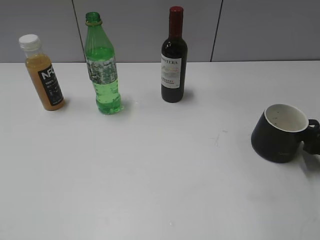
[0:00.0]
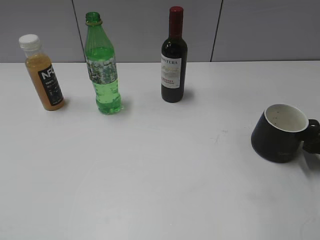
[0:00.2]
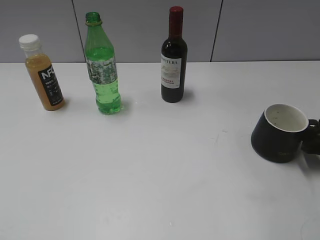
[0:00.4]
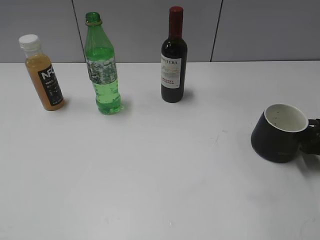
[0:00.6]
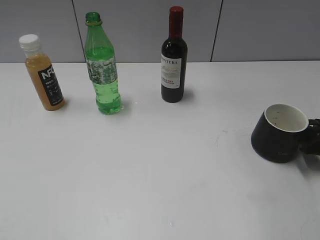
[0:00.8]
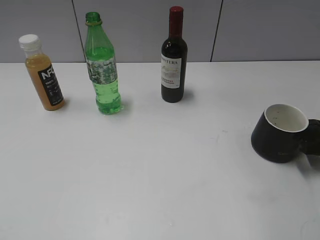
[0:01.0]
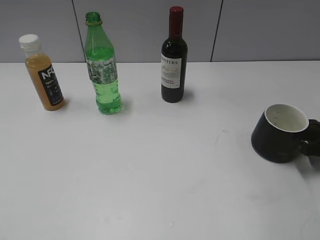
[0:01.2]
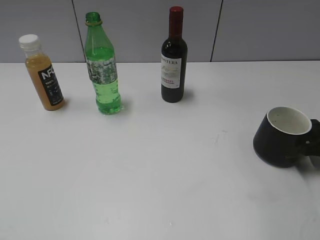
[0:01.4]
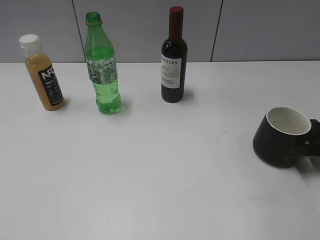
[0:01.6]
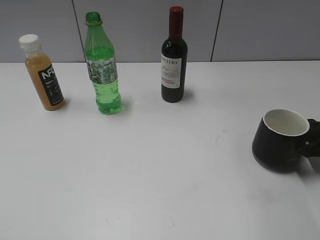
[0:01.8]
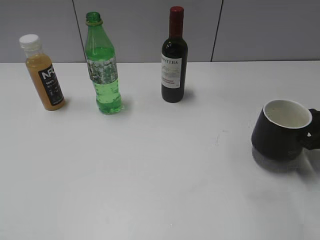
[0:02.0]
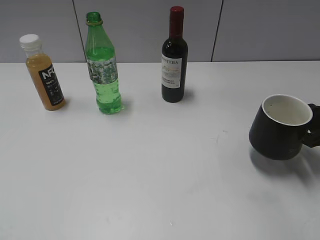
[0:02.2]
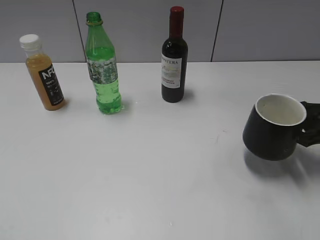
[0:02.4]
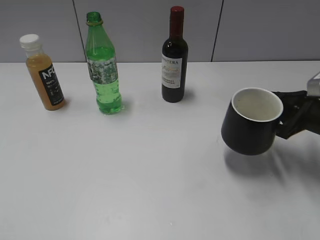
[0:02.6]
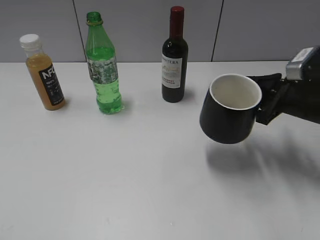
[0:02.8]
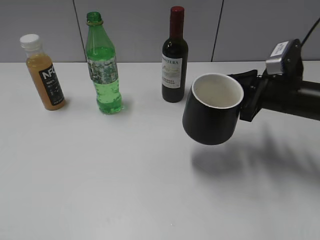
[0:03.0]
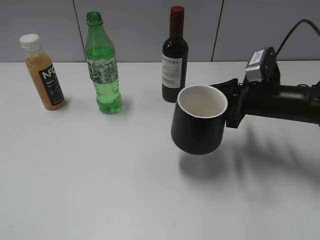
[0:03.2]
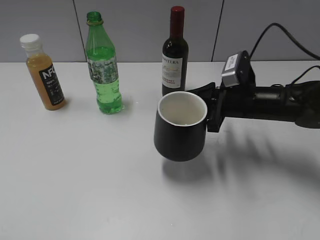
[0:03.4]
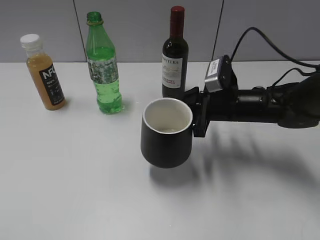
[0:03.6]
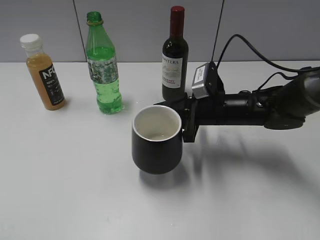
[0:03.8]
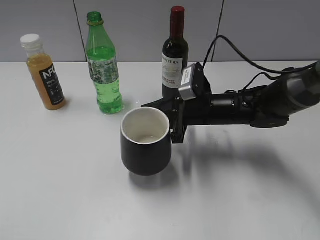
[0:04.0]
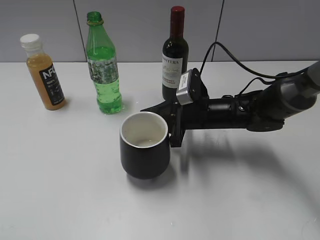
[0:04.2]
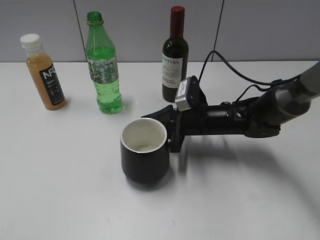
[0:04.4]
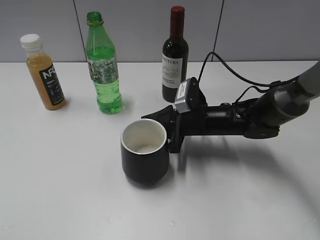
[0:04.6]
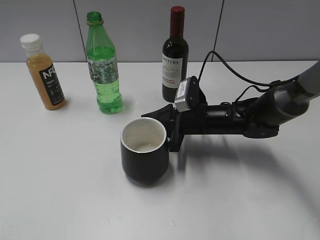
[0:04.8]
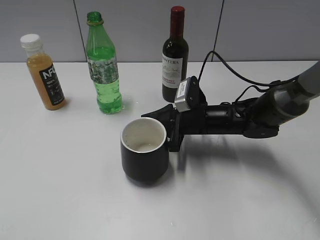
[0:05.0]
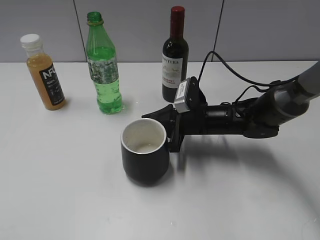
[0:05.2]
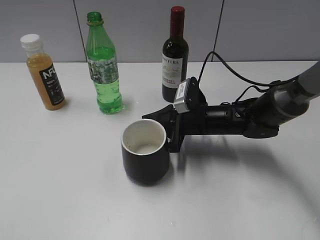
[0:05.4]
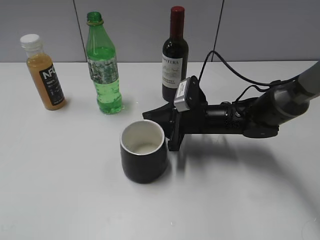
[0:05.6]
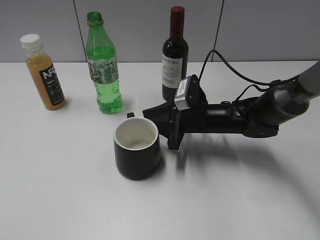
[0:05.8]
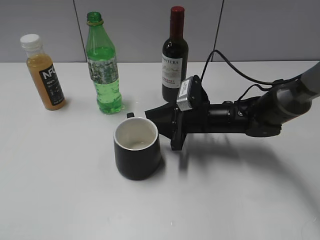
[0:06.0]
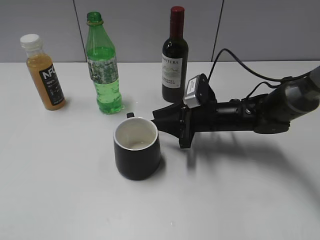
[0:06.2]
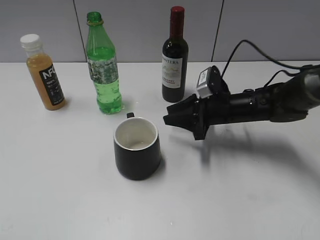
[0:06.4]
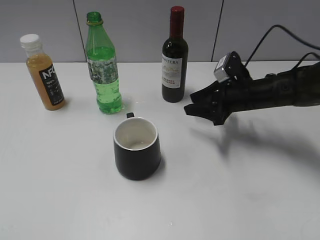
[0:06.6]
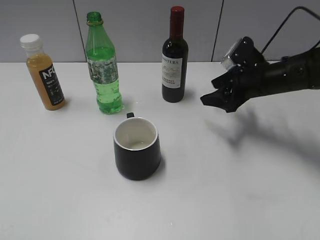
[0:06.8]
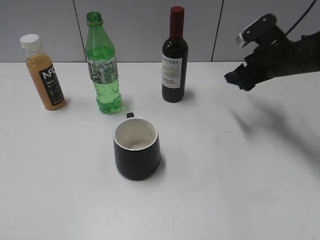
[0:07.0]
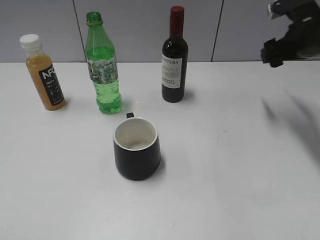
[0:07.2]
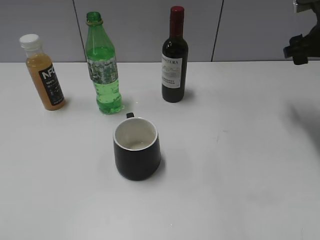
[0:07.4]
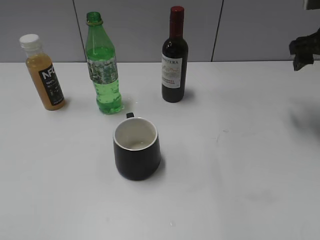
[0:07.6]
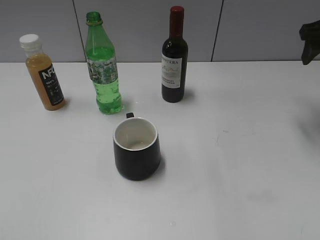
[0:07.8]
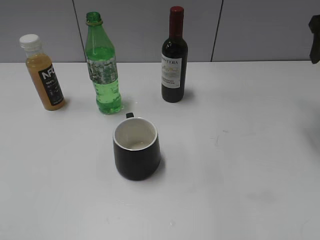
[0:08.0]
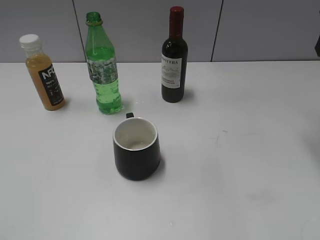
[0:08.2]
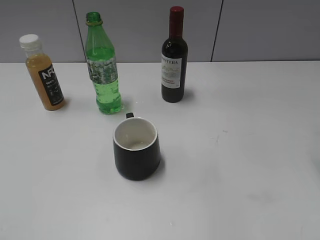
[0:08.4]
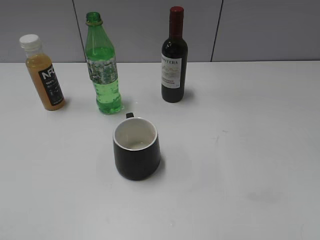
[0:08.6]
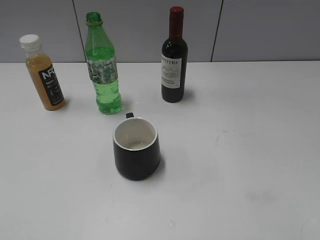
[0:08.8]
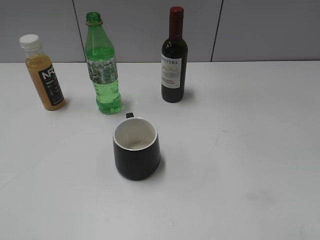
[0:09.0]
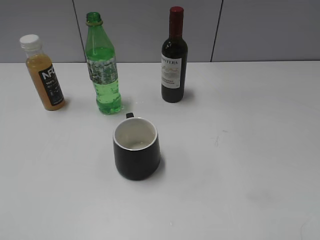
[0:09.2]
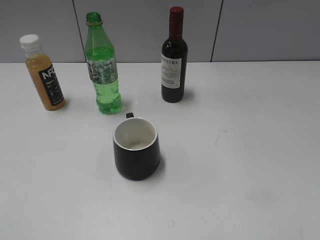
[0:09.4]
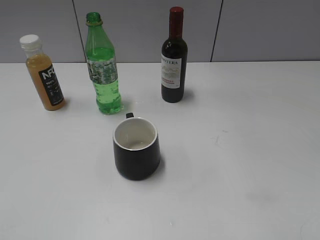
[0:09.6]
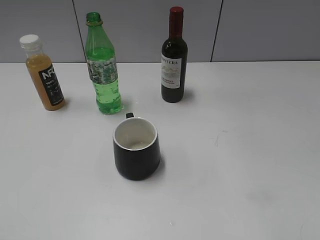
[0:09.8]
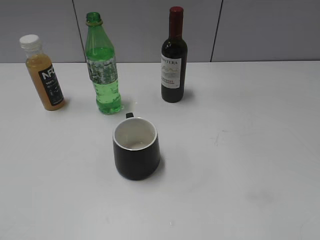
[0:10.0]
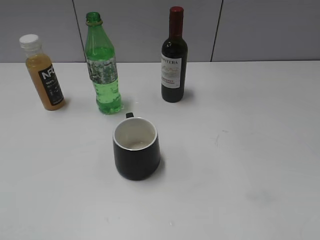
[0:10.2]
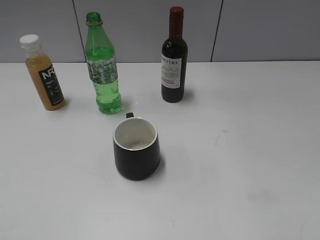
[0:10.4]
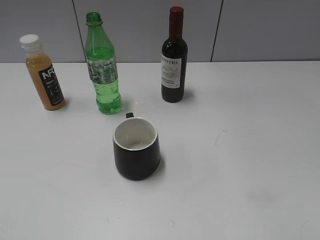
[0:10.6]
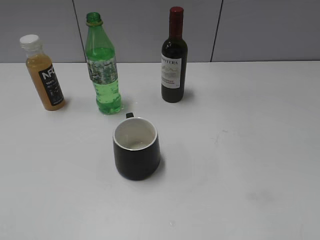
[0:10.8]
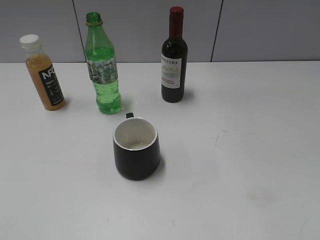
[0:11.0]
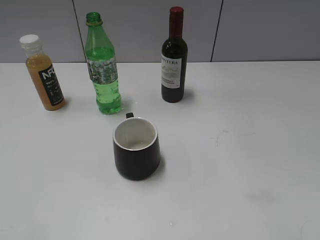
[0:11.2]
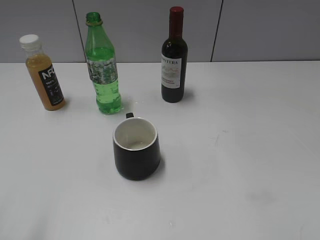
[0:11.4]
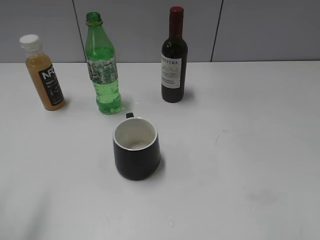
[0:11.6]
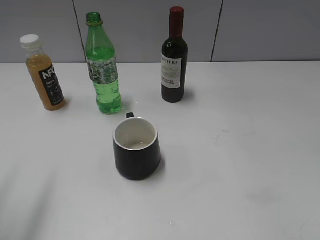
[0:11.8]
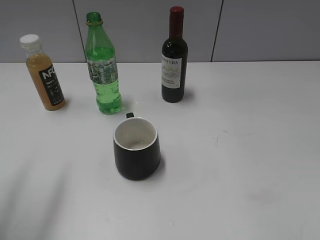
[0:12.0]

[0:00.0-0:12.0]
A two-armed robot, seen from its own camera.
Step, 0:01.8 to 0:06.0: Place the black cup in the center of view with right gripper.
0:00.0 to 0:01.6: The right gripper closes its fingers.
0:01.6 to 0:03.0: The right gripper shifts about 15 cm to the left and upward.
0:03.0 to 0:04.4: The right gripper goes about 15 cm to the left and downward.
0:04.4 to 0:06.0: The right gripper opens up.
0:06.0 to 0:07.6: The right gripper shifts some 25 cm to the right and upward, and opens up.
0:07.6 to 0:09.0: The right gripper heads backward, covering approximately 30 cm.
0:10.4 to 0:12.0: The left gripper heads forward, covering approximately 20 cm, and opens up.

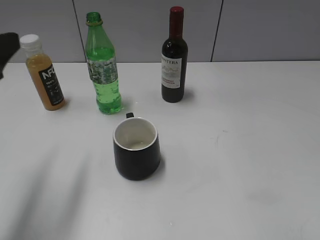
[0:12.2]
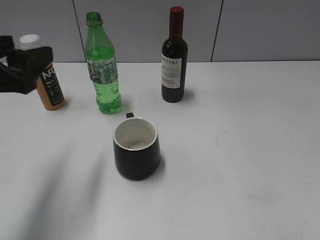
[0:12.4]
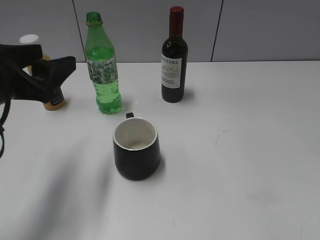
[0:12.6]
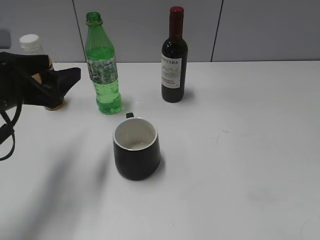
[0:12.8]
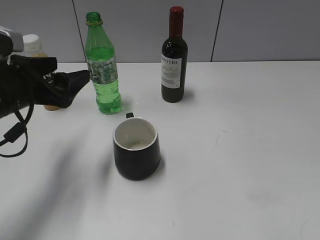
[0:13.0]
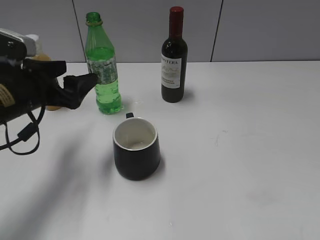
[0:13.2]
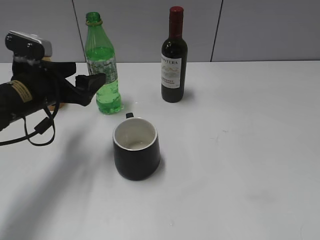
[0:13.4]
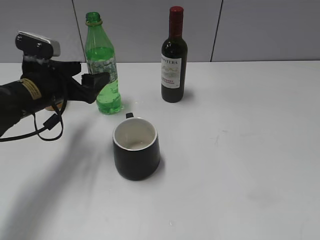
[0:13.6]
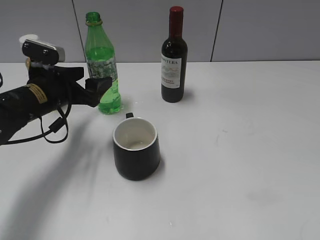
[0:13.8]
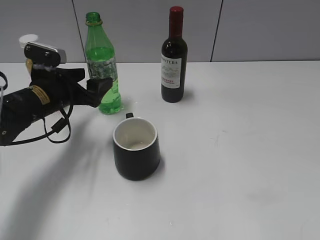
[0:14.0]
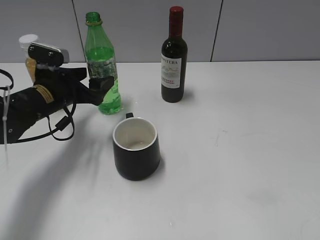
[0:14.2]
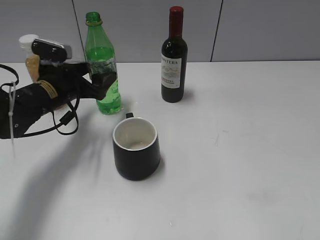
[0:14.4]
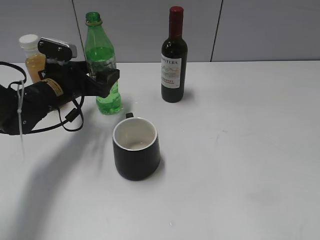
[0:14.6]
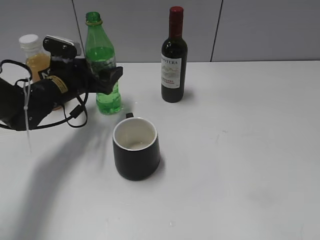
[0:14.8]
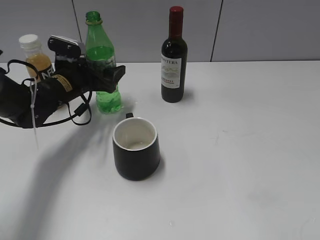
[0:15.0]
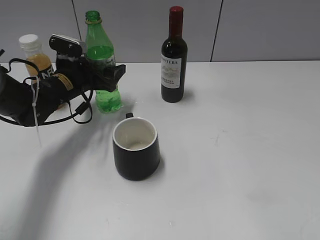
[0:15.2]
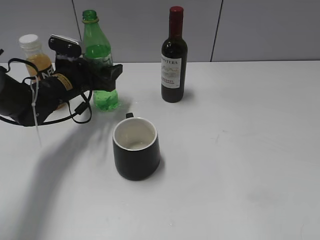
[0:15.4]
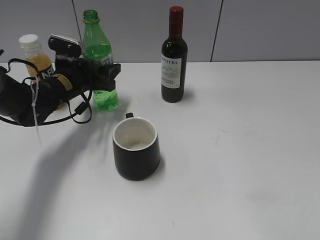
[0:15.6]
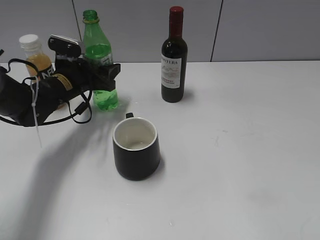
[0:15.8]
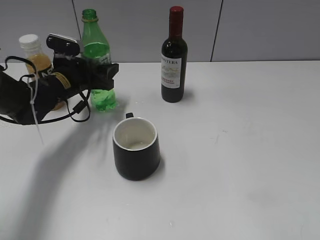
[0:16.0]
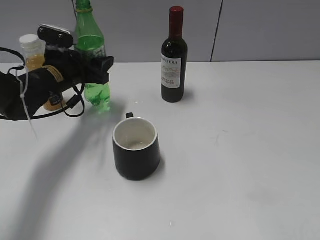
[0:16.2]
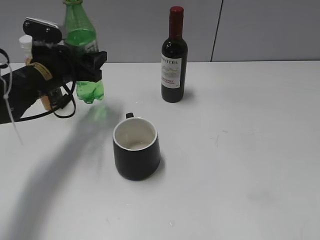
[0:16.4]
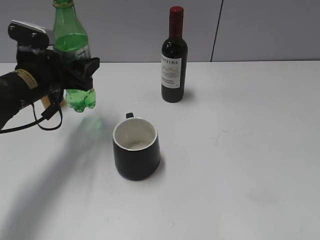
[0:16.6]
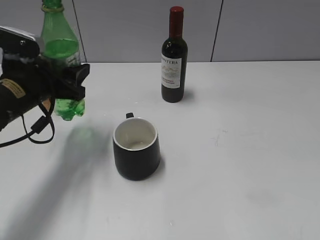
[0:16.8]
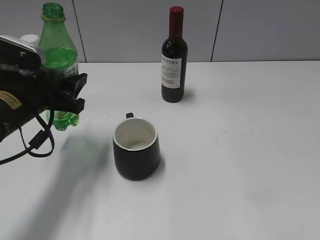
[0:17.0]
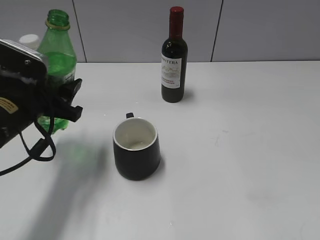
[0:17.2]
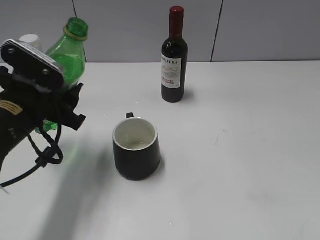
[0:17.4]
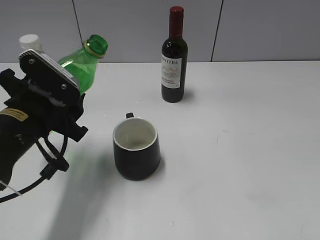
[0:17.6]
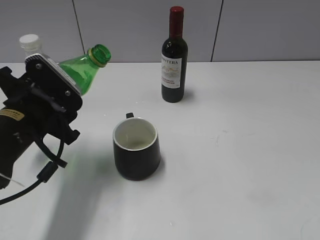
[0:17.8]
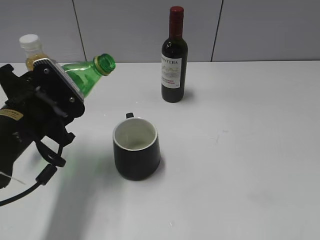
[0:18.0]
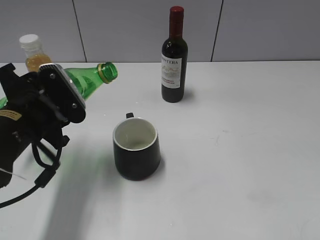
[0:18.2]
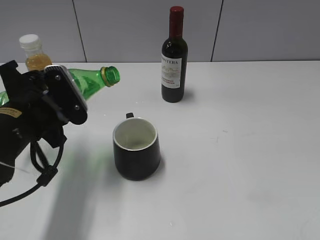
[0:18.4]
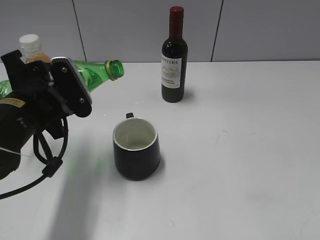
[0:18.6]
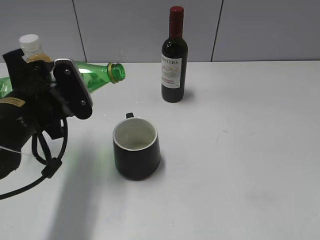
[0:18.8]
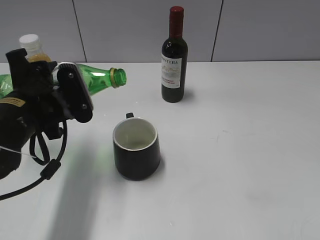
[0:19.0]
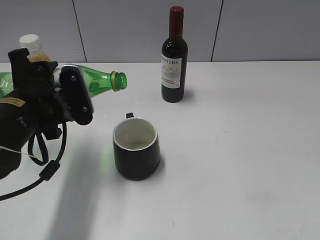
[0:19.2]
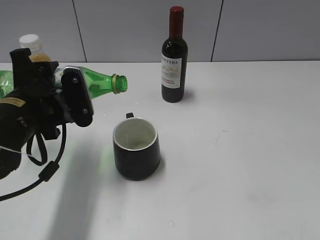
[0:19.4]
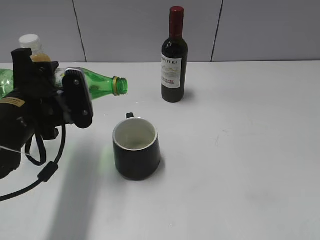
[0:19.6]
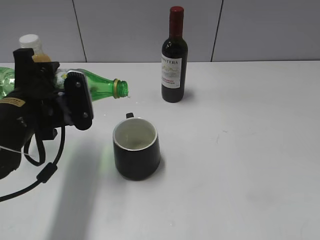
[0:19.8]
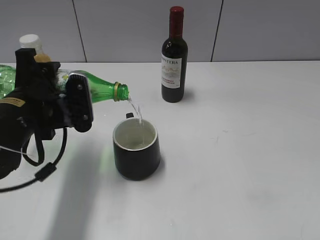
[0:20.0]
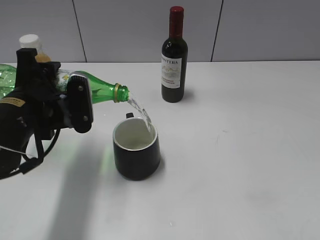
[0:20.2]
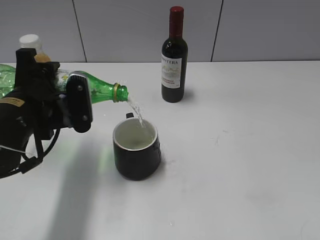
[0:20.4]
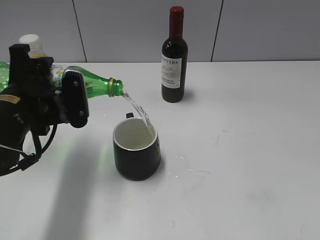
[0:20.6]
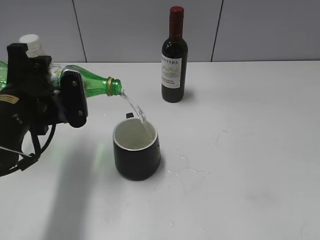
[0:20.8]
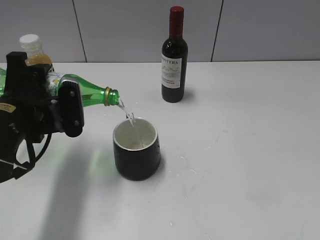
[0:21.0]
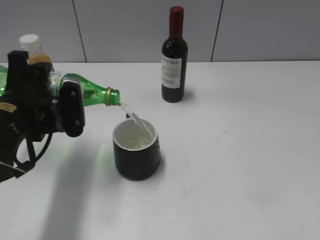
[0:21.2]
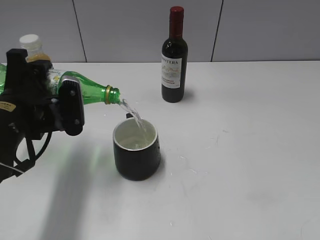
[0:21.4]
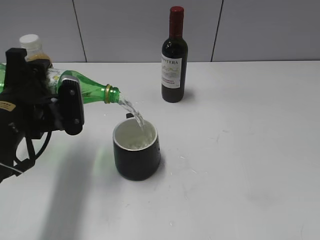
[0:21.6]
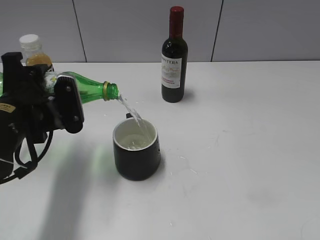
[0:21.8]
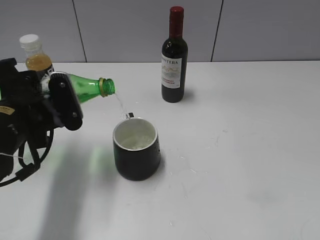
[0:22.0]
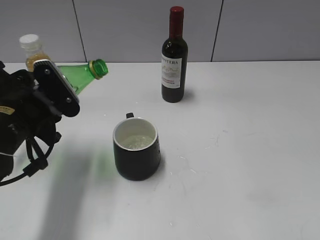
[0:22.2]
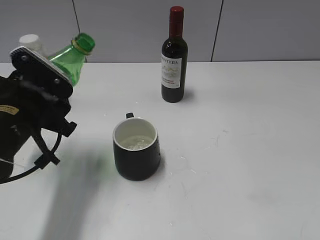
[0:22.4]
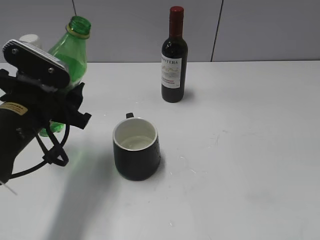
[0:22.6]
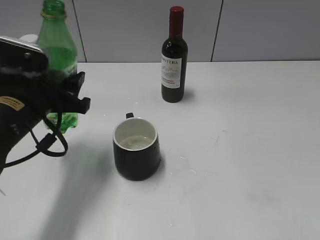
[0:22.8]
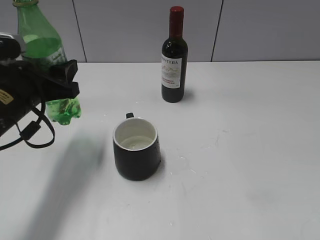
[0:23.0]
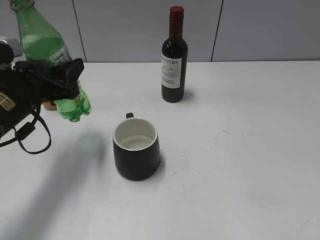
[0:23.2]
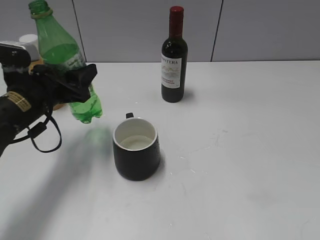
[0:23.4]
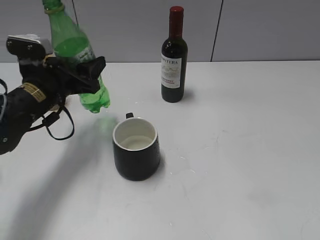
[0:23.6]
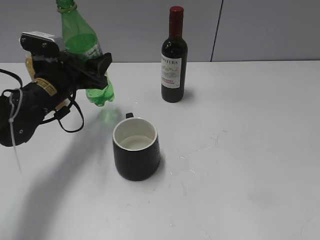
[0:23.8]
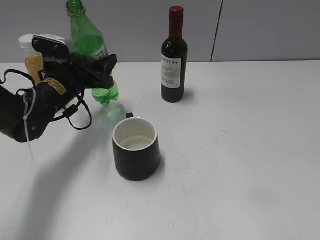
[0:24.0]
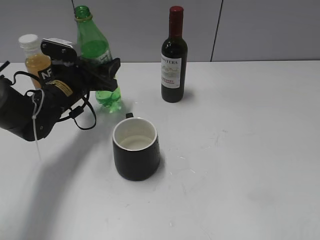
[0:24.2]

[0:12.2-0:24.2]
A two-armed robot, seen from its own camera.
Step, 0:12.2 to 0:15.6: Grasp the bottle with sprite with left gripper.
Step, 0:16.0 to 0:22.2: Pour the sprite from bottle to cup with left gripper.
0:12.2 to 0:13.8: The left gripper travels forward and downward by roughly 20 cm, and opens its fingers.
0:13.8 to 0:15.2: The left gripper moves forward, some 5 cm.
0:15.2 to 0:16.6: The left gripper travels backward and upward by roughly 10 cm, and closes.
0:16.6 to 0:18.2: The left gripper is displaced backward by approximately 10 cm.
0:19.8 to 0:21.2: The grippers make only small movements.
0:22.6 to 0:24.2: The left gripper shifts approximately 15 cm forward and downward.
